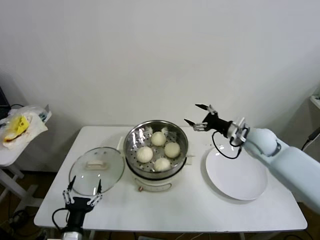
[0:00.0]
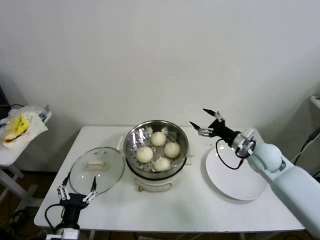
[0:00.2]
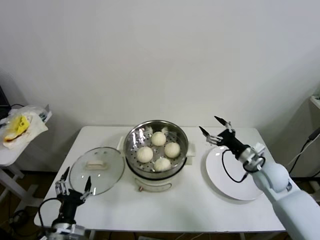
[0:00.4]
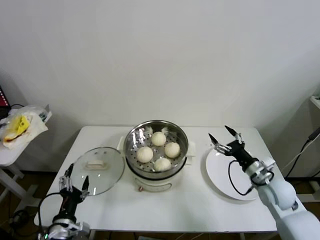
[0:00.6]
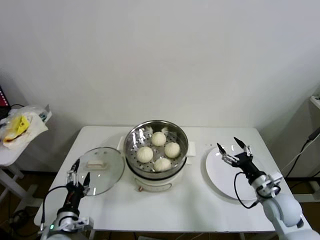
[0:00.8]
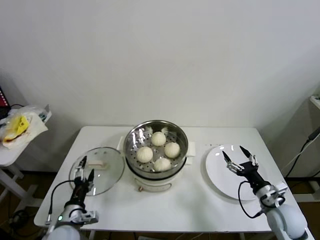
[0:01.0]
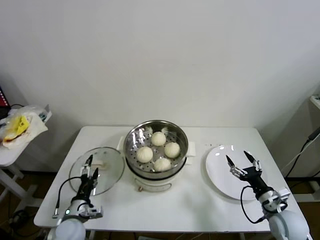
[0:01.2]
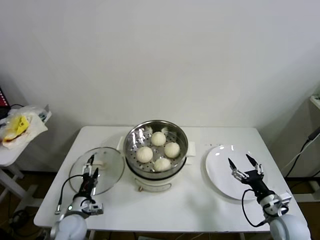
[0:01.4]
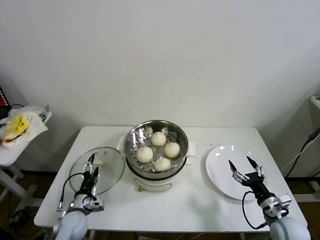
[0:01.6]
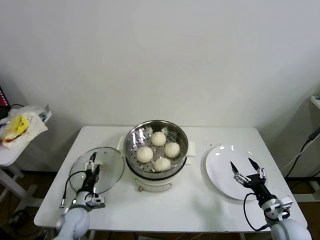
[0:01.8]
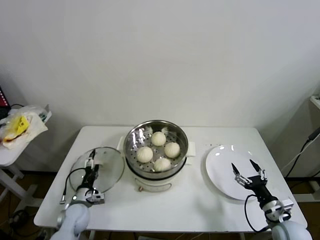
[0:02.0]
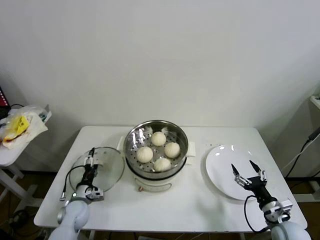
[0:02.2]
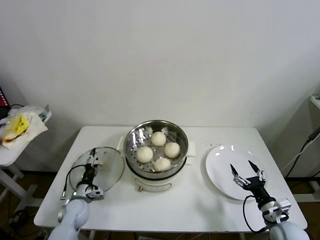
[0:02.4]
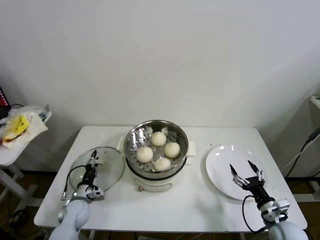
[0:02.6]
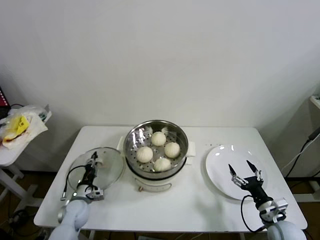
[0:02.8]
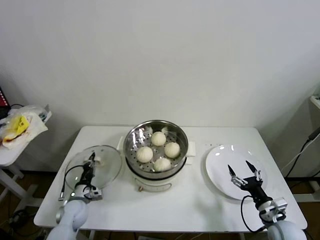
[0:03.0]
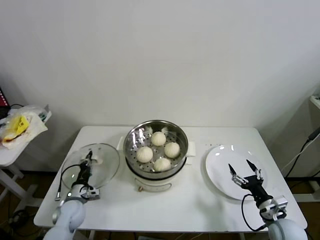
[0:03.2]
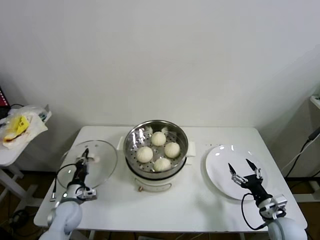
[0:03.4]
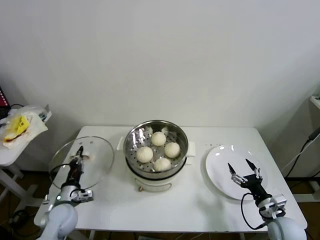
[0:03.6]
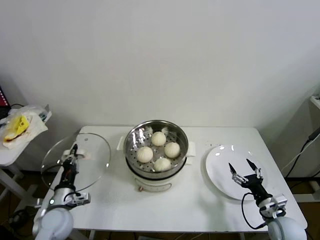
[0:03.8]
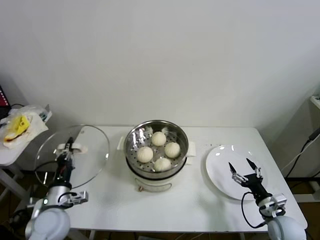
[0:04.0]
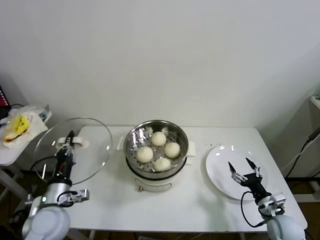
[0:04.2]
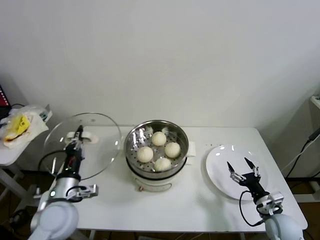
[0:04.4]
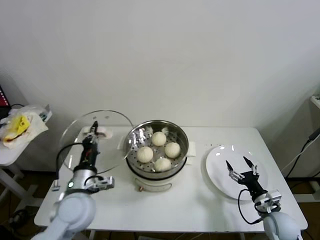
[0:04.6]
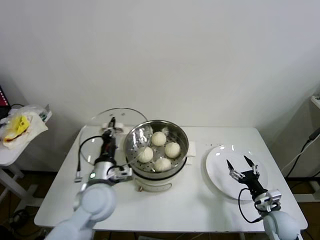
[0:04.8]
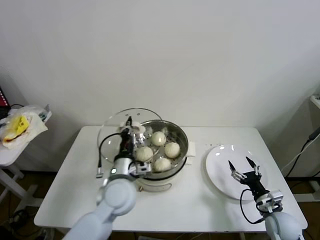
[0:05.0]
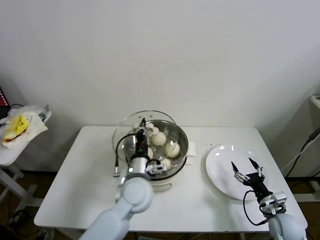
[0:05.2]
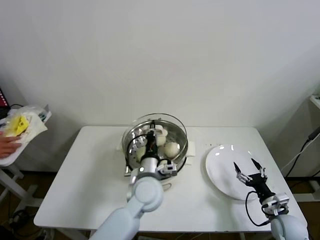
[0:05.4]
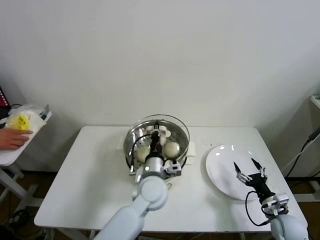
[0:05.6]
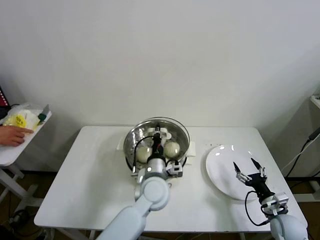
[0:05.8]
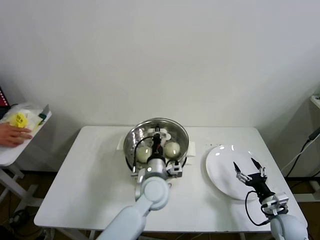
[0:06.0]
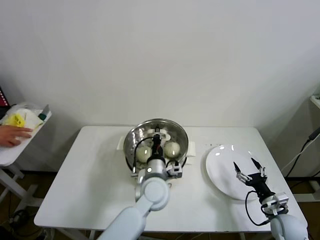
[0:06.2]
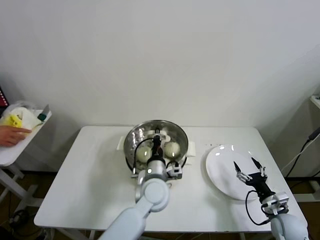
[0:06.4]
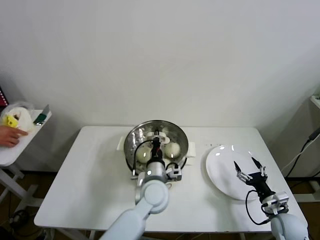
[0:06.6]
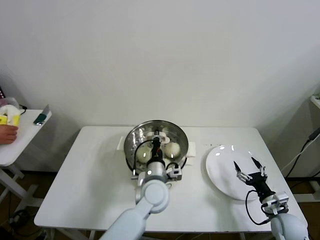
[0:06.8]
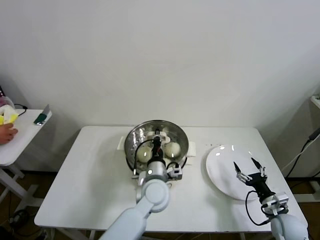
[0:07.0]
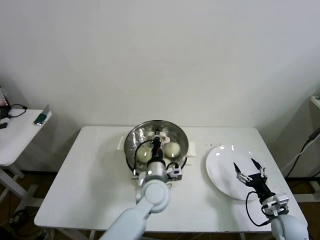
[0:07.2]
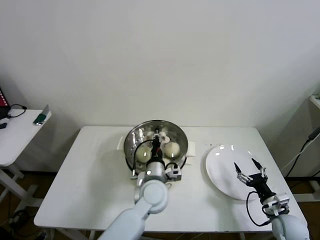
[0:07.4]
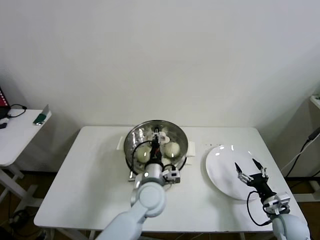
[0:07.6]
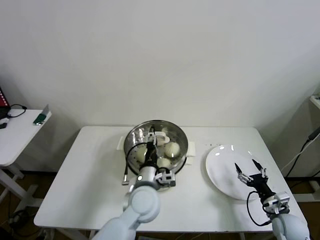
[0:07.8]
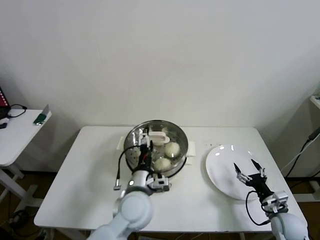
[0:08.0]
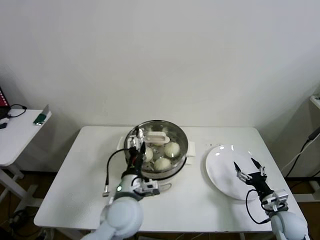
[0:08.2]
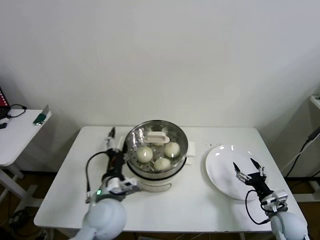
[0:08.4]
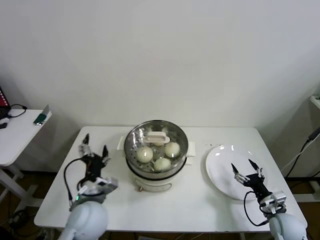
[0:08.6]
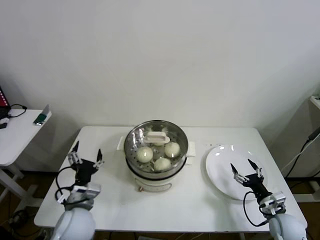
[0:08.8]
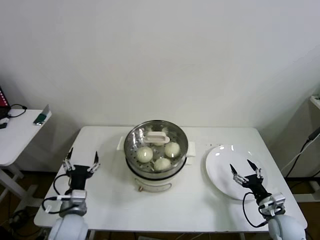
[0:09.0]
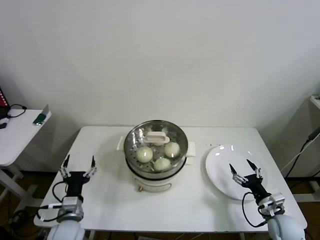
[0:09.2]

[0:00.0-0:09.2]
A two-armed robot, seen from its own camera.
Step, 0:00.0 to 0:03.0: Grasp the pot lid with left gripper.
Step, 0:03.2 to 0:07.2: Place the pot lid on the steamer with left gripper.
0:00.0 to 0:01.6: The left gripper moves forward and downward, roughly 15 cm, while the right gripper shifts approximately 25 cm backward and downward.
0:01.6 to 0:03.0: The left gripper goes approximately 5 cm forward, and closes up.
0:03.0 to 0:04.6: The left gripper travels upward and to the right by some 25 cm.
0:04.6 to 0:06.2: The left gripper goes roughly 20 cm to the right.
0:06.2 to 0:07.6: The left gripper opens its fingers.
0:07.6 to 0:09.2: The left gripper shifts roughly 25 cm to the left, and opens.
